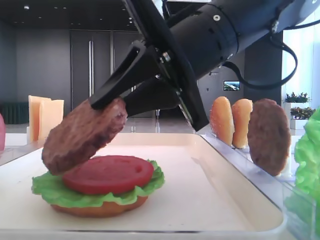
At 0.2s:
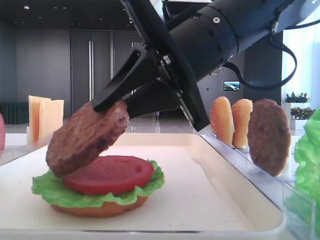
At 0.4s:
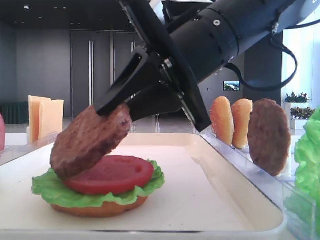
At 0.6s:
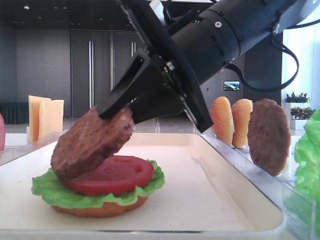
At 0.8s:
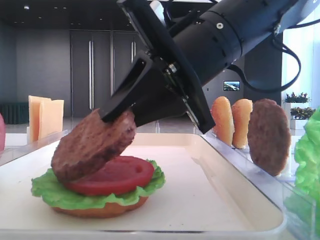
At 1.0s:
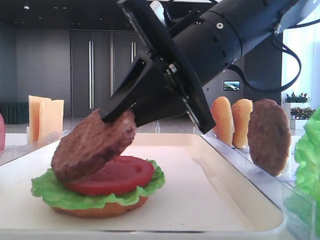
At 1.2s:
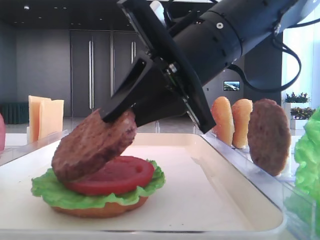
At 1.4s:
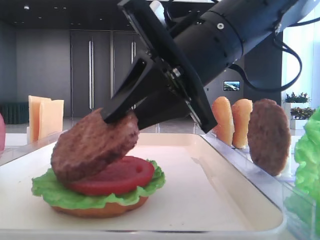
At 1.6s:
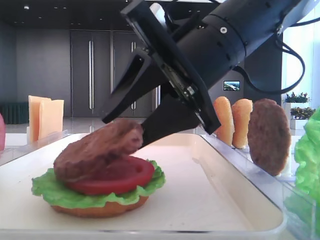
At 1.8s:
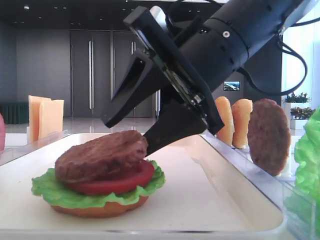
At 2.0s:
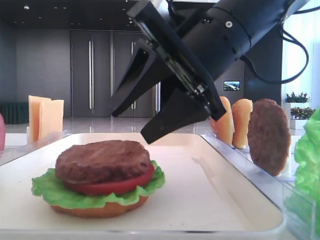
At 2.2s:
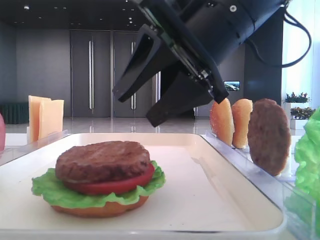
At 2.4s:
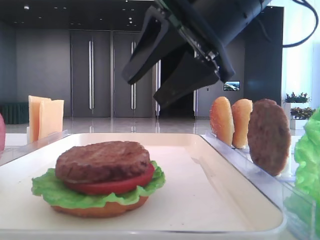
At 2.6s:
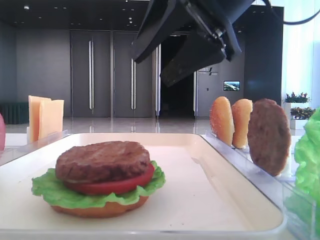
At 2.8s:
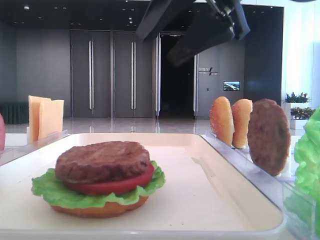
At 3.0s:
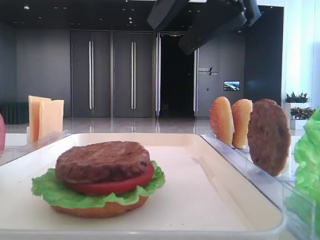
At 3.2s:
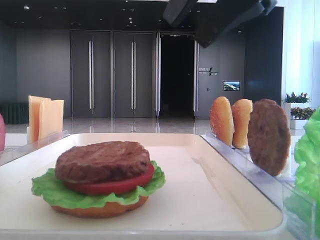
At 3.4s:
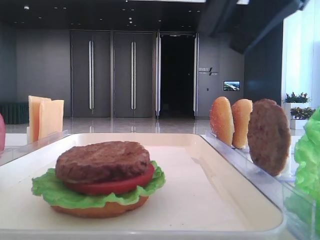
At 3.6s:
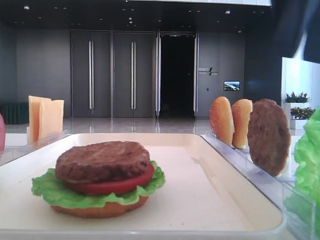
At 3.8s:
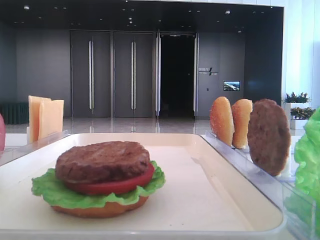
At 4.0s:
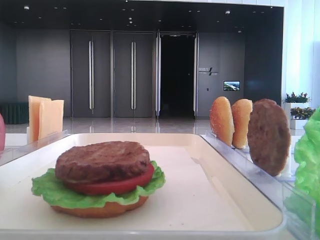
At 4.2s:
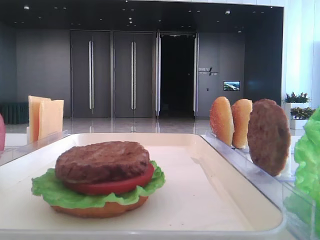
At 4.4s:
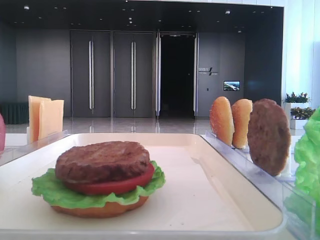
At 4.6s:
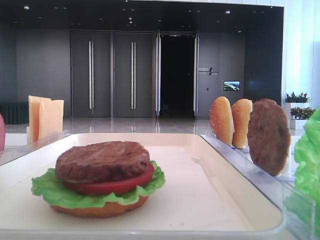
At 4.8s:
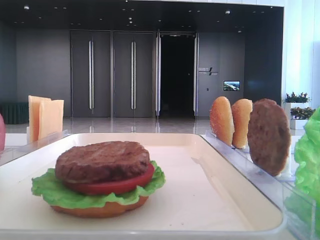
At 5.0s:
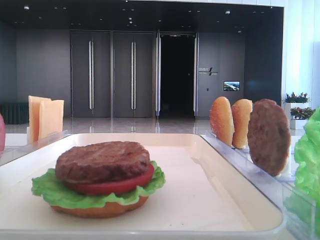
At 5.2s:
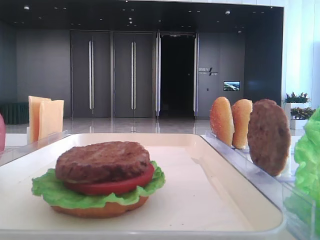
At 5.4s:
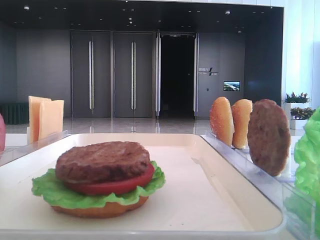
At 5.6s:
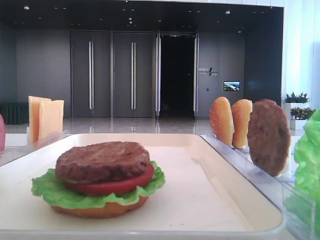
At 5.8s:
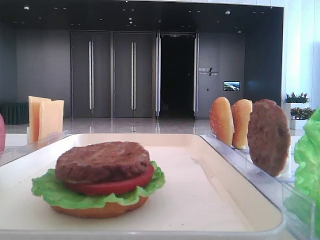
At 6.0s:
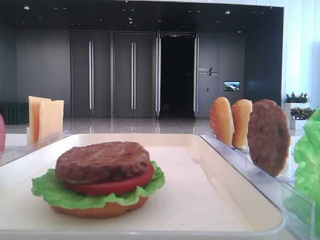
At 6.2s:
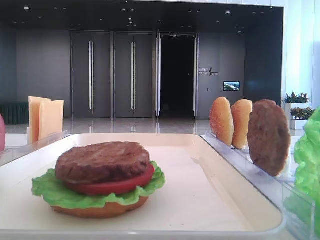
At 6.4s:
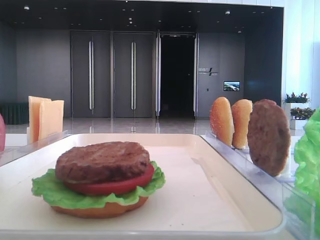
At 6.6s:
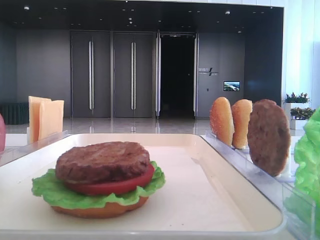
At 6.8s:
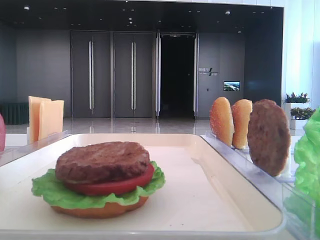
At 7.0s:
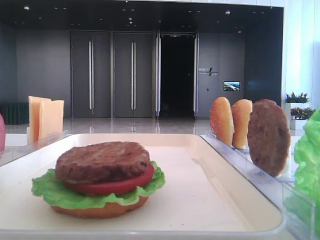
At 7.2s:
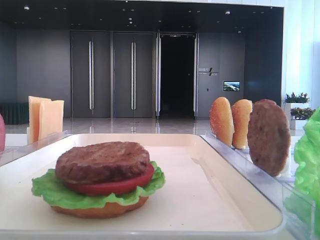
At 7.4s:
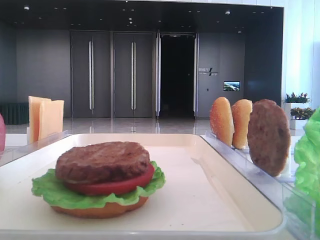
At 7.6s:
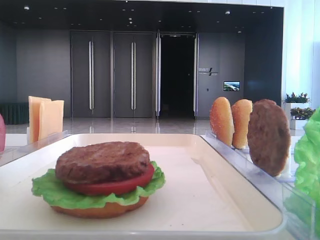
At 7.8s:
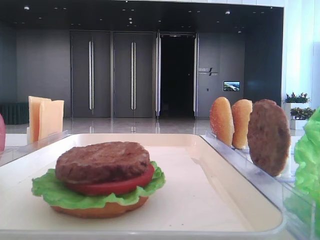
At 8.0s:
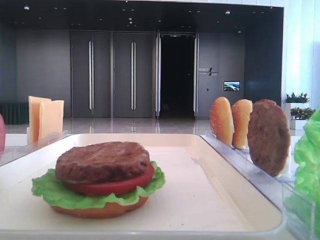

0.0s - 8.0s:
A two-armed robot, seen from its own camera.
0.0s - 1.6s: The right gripper opens.
1.6s - 3.2s: The right gripper is displaced upward by about 10 cm.
3.2s - 4.8s: The right gripper is displaced to the right by approximately 20 cm.
6.4s - 8.0s: The two grippers keep their place.

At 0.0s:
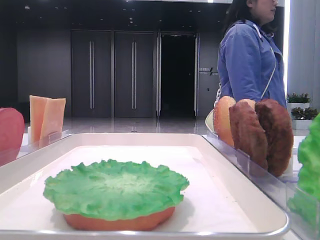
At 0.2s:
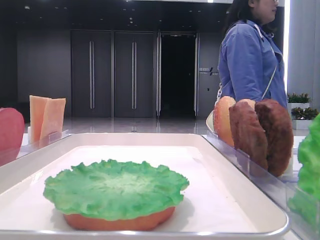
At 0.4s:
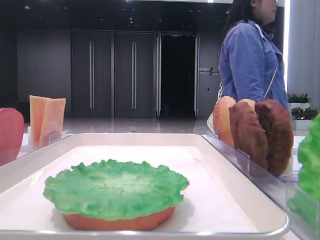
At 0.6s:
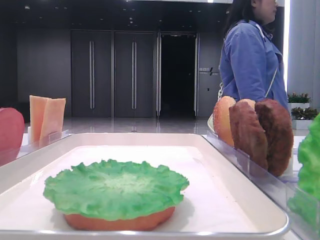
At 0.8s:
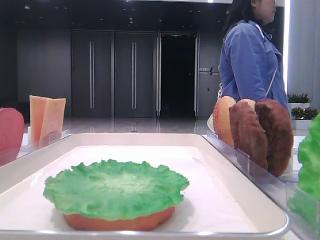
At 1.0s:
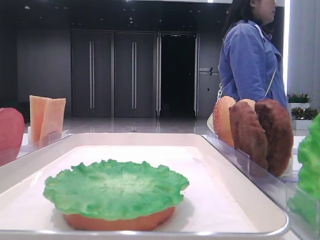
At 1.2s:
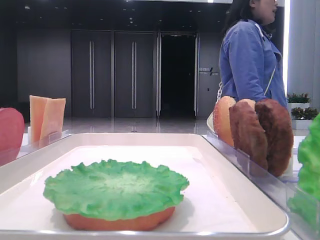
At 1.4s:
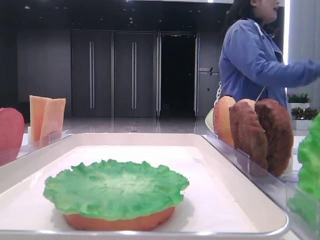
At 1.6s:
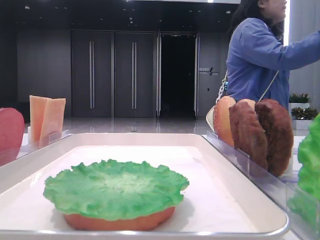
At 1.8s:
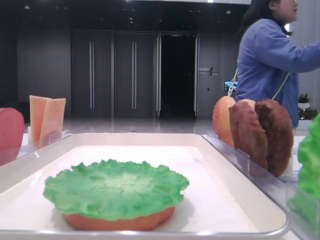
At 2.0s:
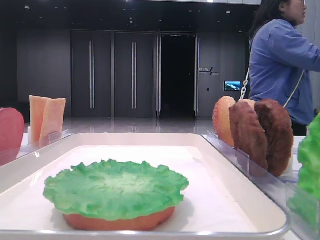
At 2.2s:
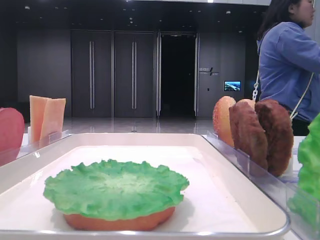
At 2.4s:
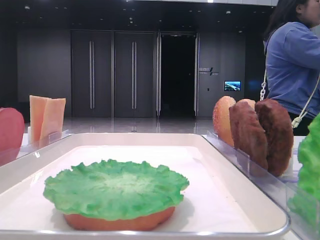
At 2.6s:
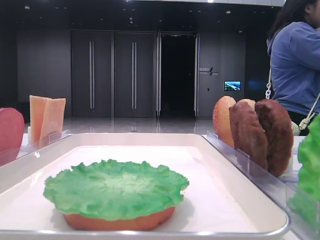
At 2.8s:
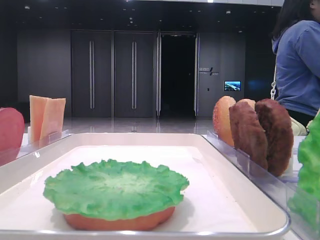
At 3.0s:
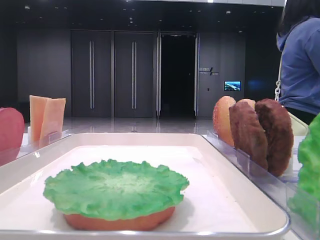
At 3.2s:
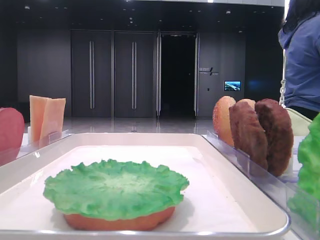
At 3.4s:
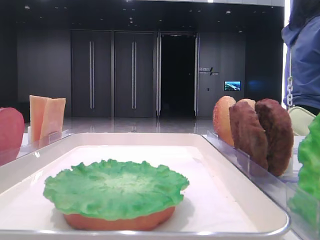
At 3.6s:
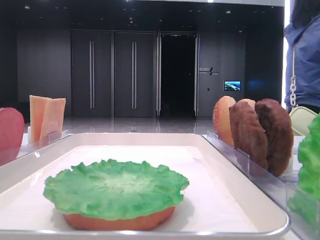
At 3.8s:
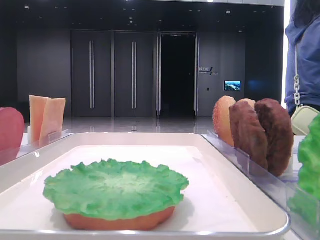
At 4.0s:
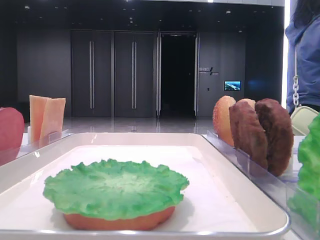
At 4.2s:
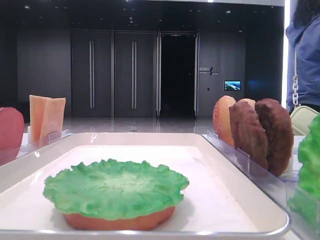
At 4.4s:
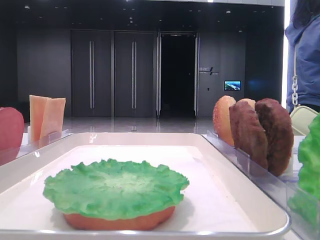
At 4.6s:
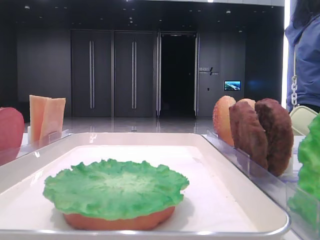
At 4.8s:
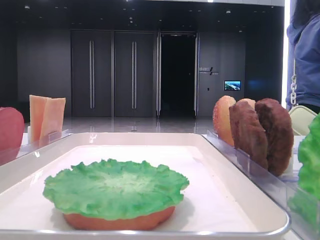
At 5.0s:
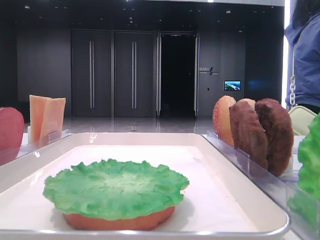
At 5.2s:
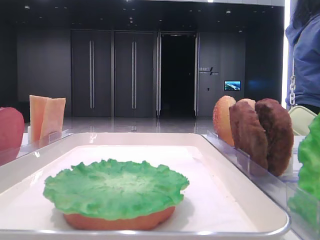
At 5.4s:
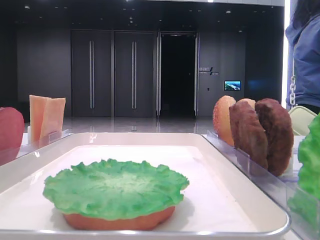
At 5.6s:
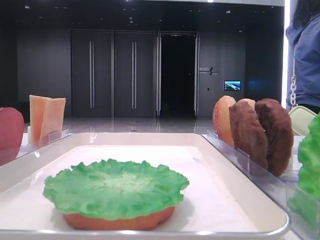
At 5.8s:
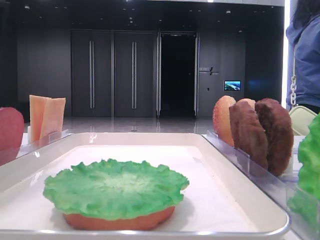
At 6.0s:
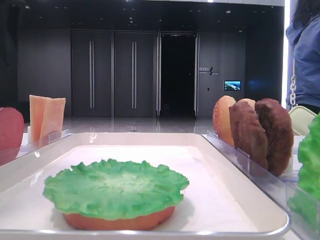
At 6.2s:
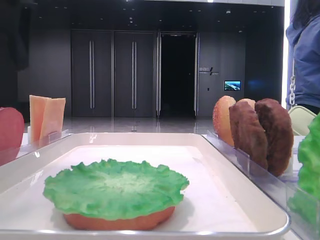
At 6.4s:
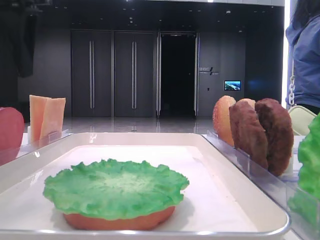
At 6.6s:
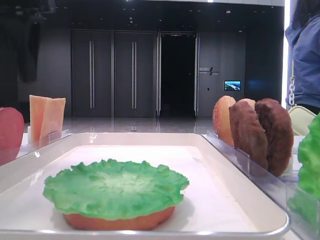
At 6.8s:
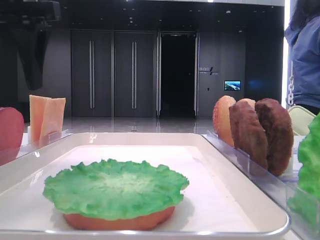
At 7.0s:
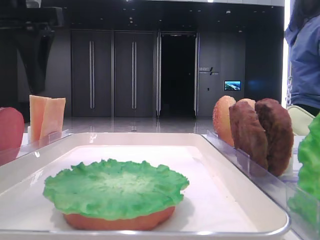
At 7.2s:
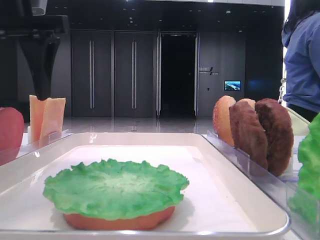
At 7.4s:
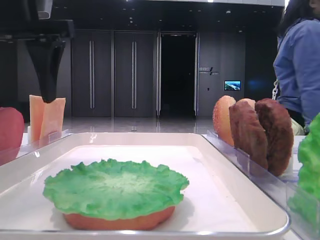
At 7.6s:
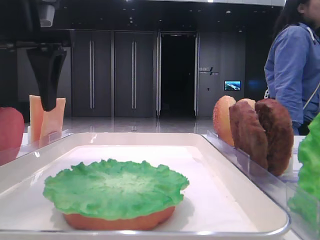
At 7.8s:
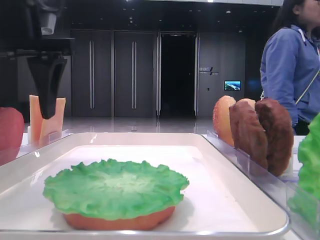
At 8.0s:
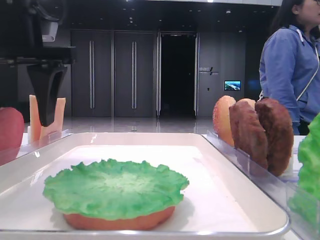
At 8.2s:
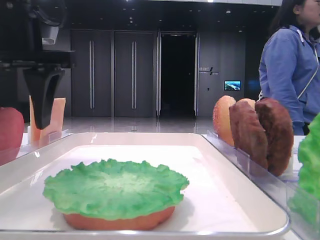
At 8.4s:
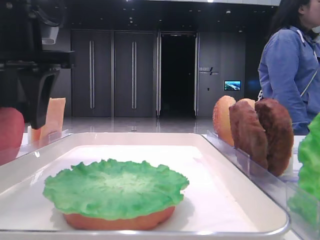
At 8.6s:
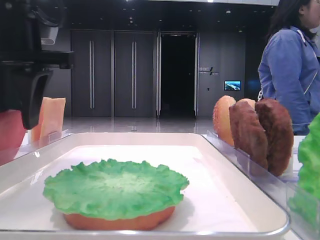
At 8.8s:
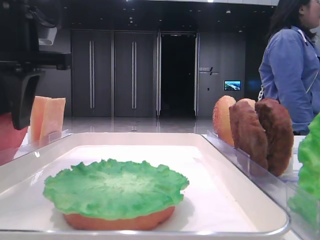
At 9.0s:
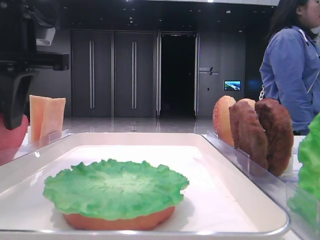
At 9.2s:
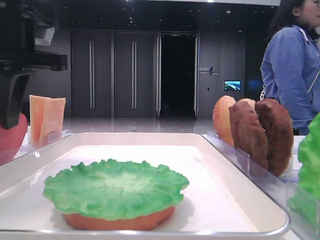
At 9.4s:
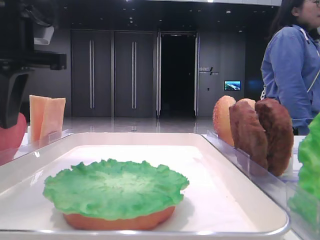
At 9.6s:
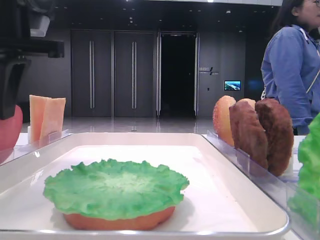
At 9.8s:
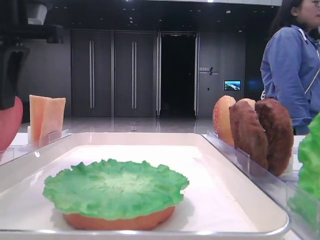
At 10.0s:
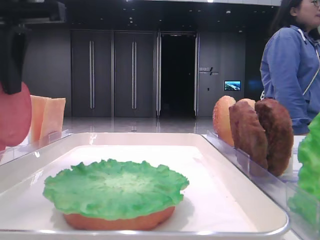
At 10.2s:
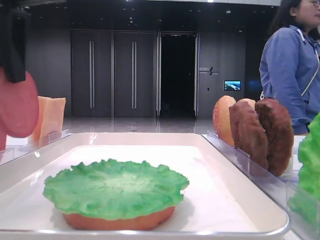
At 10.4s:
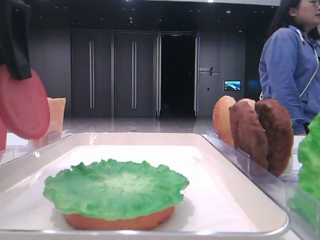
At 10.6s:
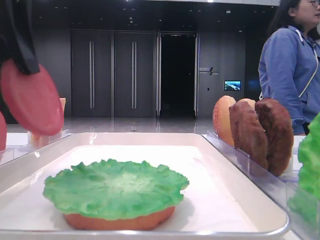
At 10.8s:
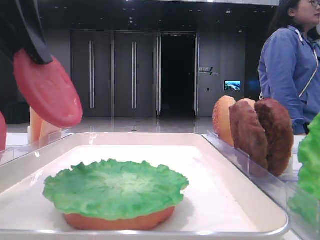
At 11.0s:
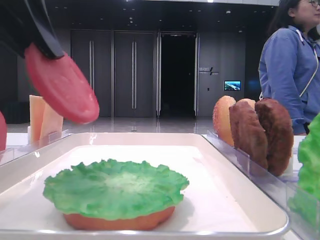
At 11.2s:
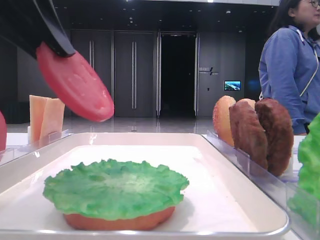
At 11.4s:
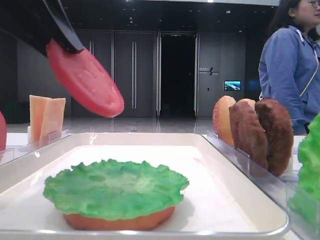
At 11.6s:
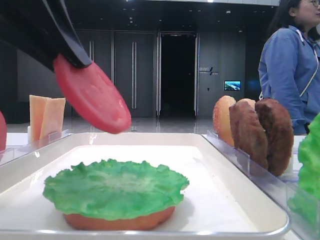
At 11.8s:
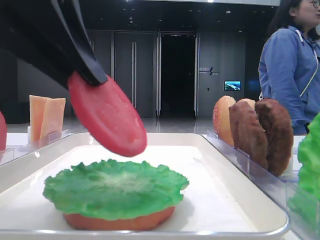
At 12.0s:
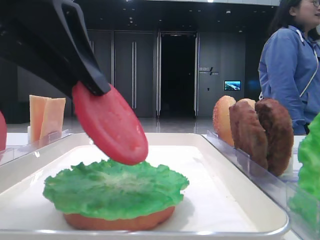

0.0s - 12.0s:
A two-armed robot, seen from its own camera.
Step, 0.0s - 9.4s: Pick up the tomato slice with the left hand.
4.4s - 6.0s: The left gripper moves to the right, approximately 10 cm.
6.0s - 7.6s: The left gripper ends up about 5 cm from where it was.
7.6s - 9.0s: The left gripper closes up.
9.0s - 10.4s: The left gripper shifts by approximately 5 cm.
10.4s - 12.0s: The left gripper ends up roughly 5 cm from where it was.

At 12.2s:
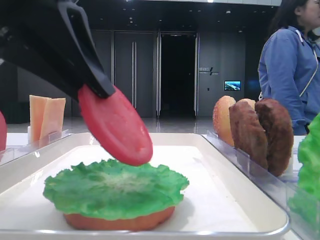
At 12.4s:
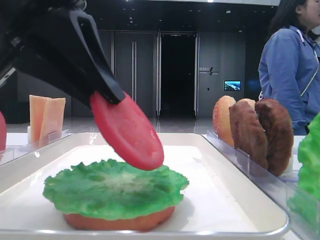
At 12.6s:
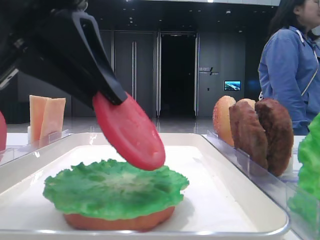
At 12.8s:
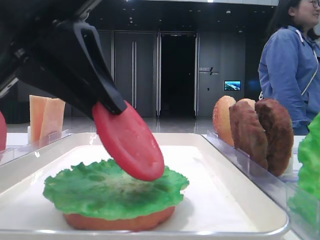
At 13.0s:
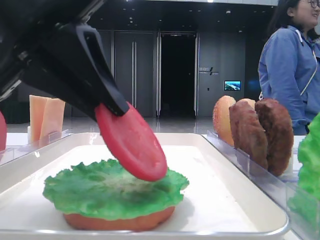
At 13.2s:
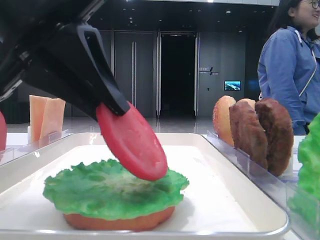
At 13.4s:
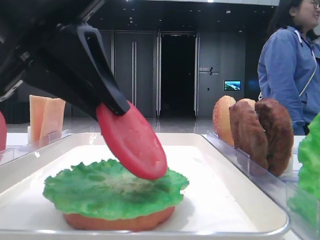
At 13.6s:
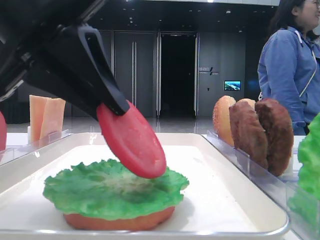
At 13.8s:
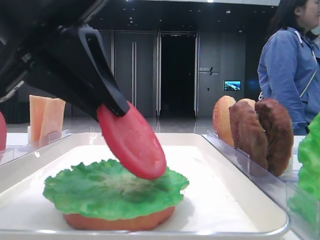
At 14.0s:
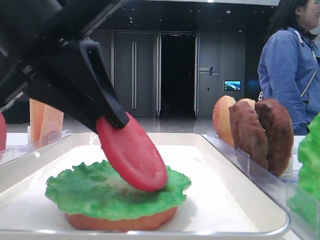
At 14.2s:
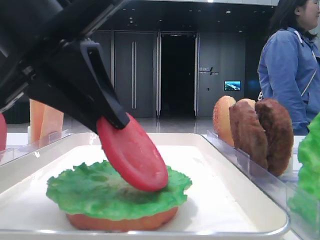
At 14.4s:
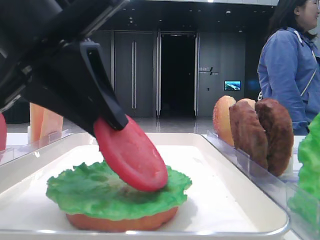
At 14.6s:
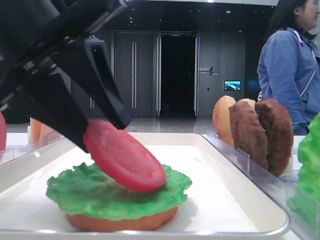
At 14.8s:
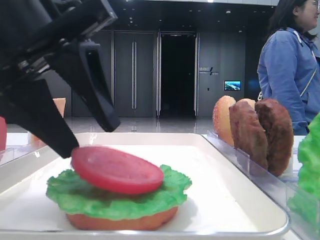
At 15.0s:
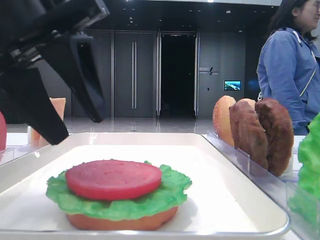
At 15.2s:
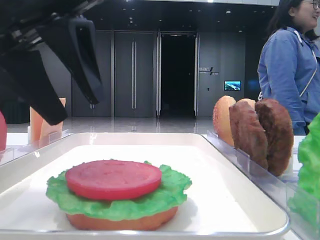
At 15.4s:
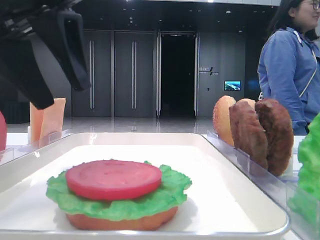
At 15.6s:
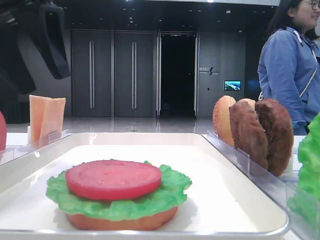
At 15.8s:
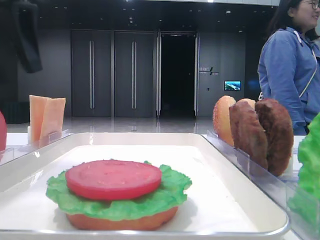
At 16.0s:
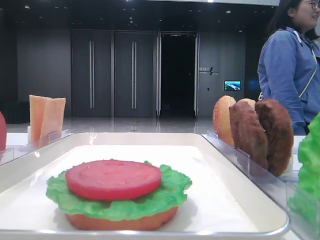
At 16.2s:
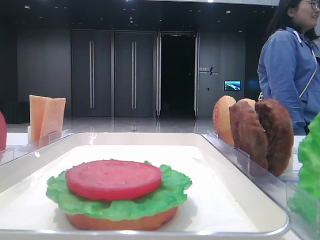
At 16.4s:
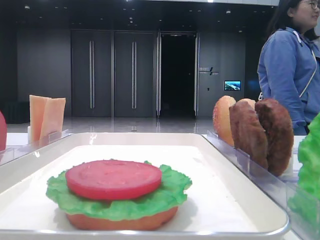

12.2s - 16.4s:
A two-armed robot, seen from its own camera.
Step, 12.2s - 14.8s: Place the tomato slice on the lettuce leaf with the left hand.
12.2s - 13.6s: The grippers move only a little.
13.6s - 15.0s: The left gripper opens.
15.0s - 16.4s: The left gripper is displaced to the left and upward by about 20 cm.
